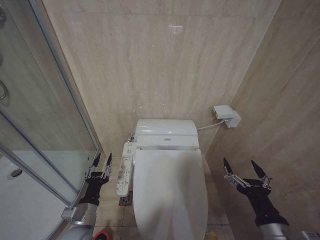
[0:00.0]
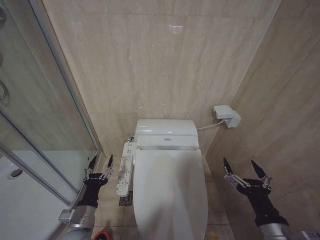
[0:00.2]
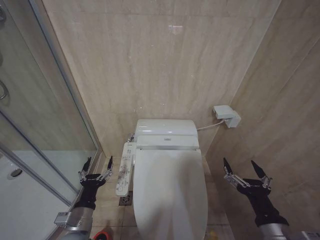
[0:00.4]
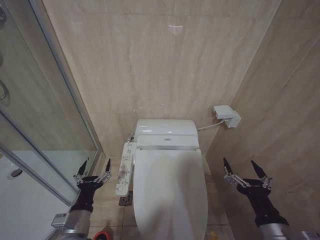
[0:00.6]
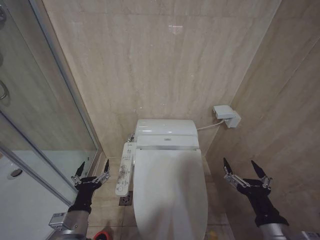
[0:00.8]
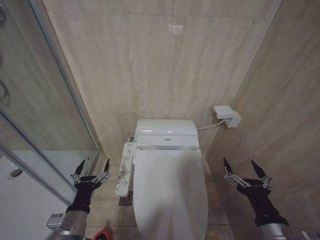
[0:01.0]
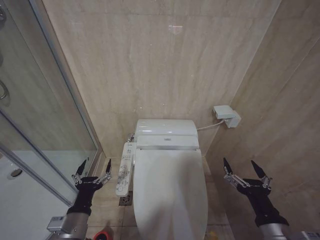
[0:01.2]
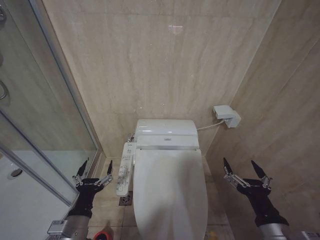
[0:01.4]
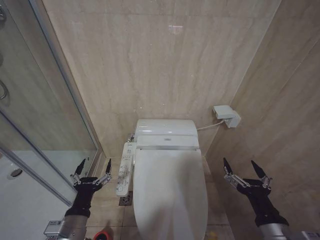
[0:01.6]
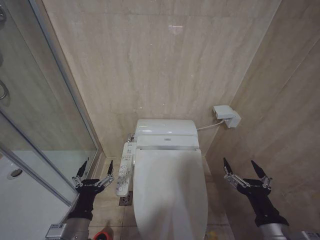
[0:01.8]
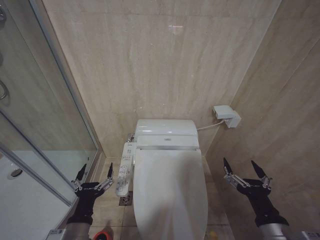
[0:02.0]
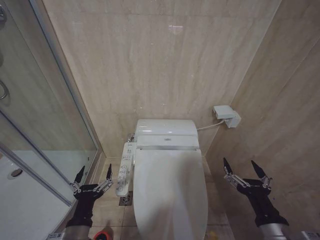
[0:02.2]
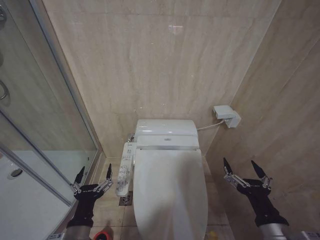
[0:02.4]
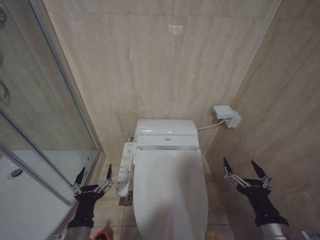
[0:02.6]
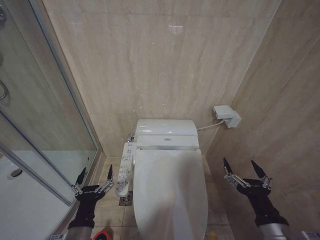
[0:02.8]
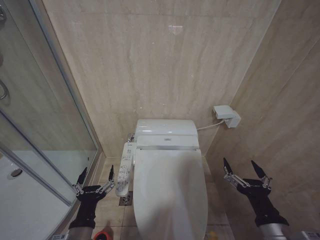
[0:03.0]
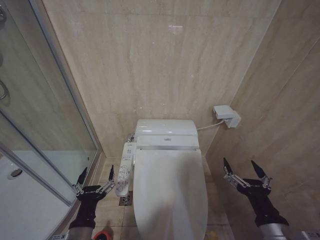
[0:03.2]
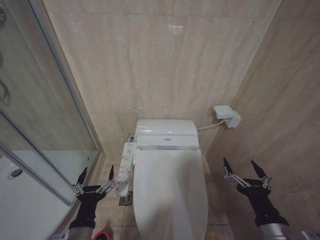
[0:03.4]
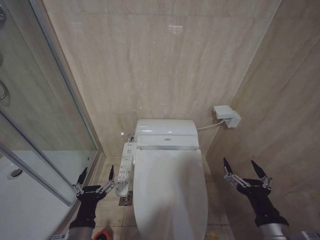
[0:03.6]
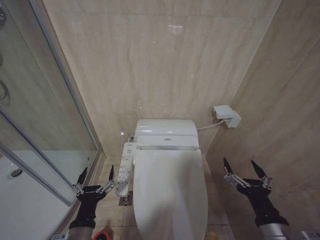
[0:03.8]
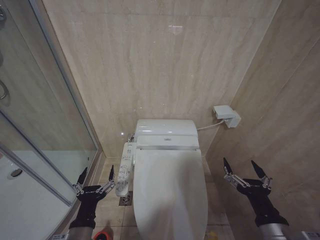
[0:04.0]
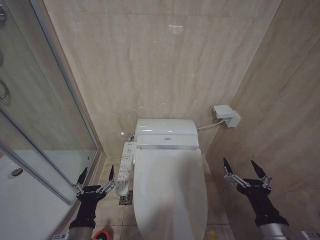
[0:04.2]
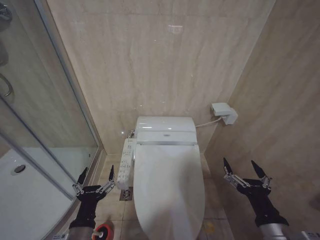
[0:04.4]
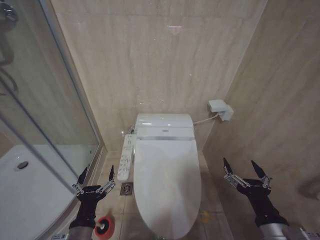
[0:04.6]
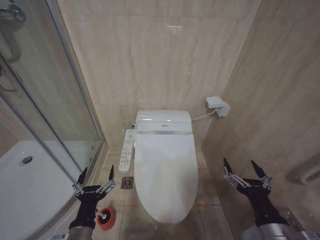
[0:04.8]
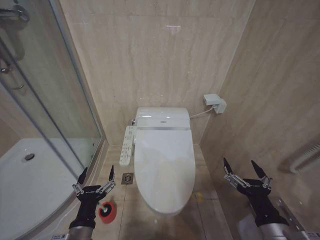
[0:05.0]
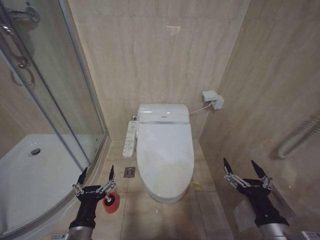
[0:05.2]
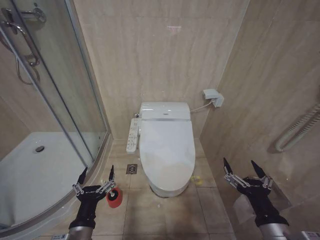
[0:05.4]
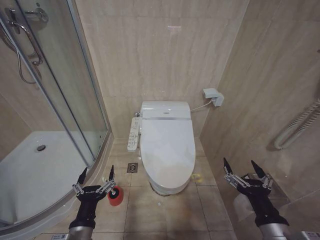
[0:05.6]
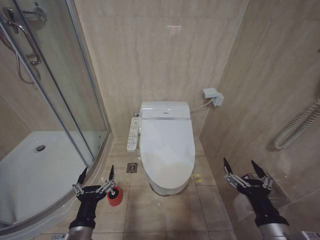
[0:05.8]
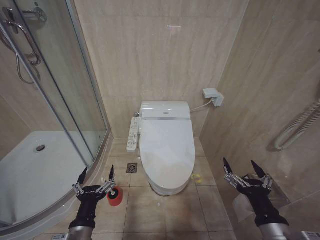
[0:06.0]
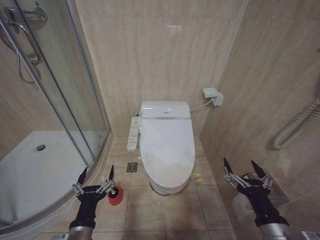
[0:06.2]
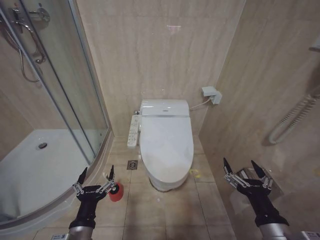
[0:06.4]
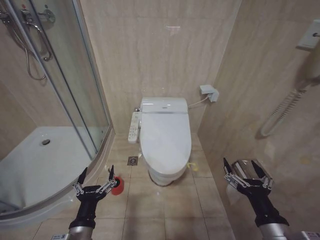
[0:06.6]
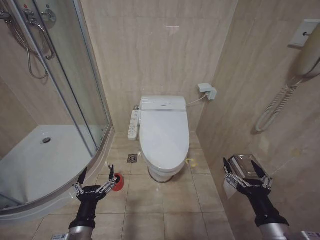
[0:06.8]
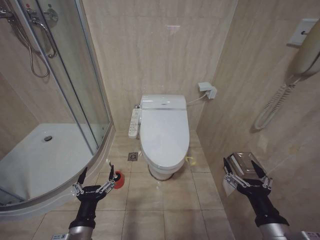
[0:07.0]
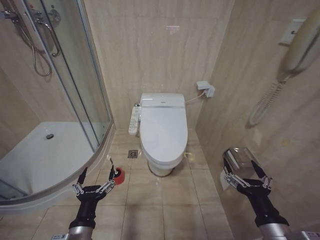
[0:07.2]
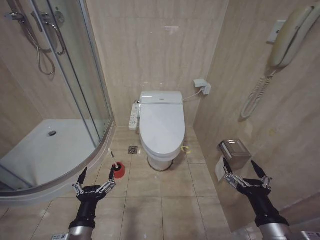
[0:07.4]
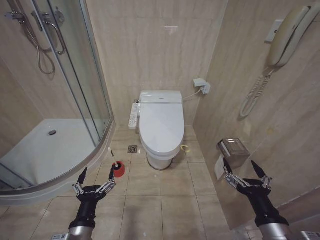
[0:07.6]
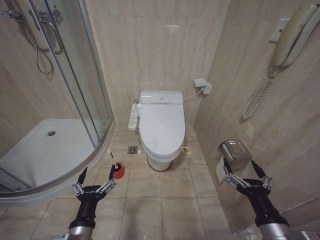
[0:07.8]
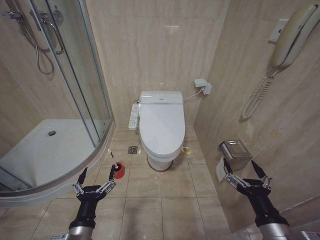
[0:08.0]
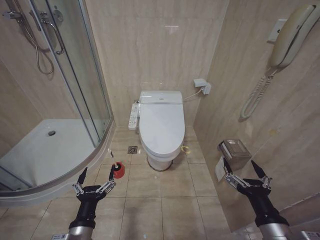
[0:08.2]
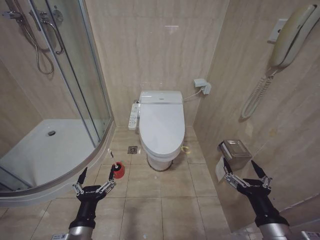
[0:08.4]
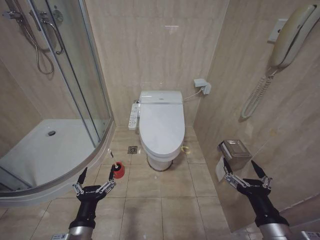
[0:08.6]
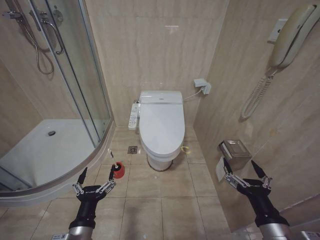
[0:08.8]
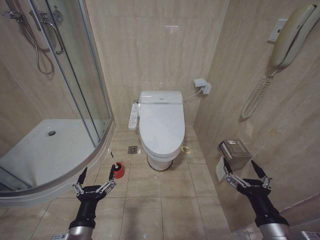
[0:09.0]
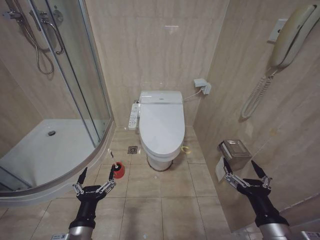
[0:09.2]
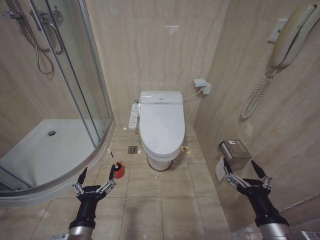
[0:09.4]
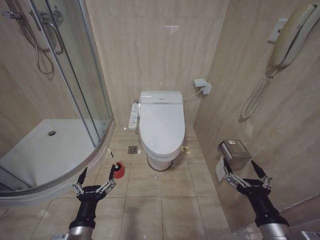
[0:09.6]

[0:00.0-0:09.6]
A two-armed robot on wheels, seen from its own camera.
Task of the whole recording: Open the toilet lid, clean the toilet bowl with a toilet brush, close the toilet lid, and flush.
0:00.0 to 0:01.6: The left gripper shifts some 10 cm upward and backward, and opens up.
0:01.6 to 0:03.2: The grippers make only small movements.
0:03.2 to 0:09.6: The two grippers keep their place.

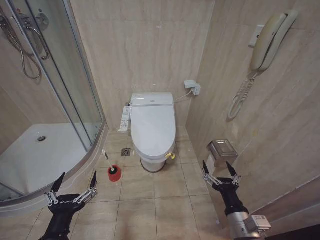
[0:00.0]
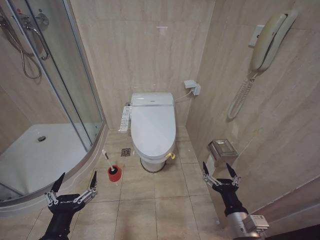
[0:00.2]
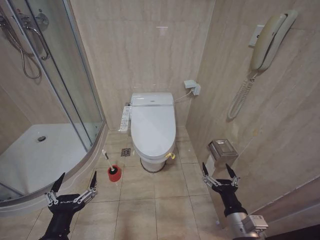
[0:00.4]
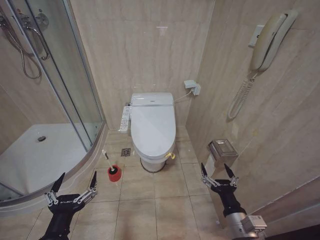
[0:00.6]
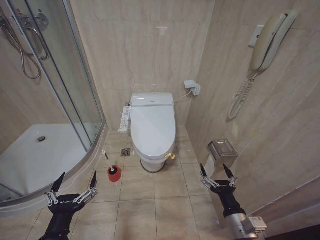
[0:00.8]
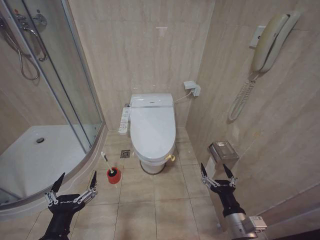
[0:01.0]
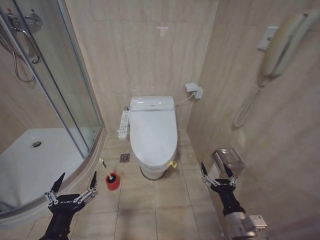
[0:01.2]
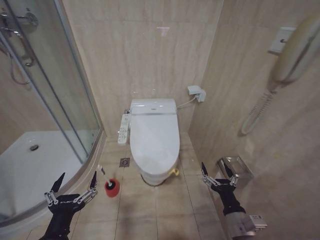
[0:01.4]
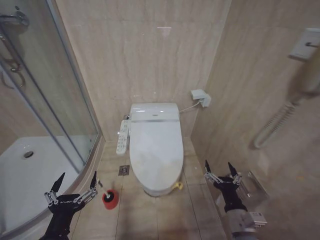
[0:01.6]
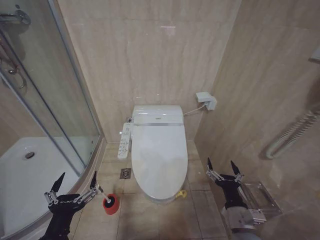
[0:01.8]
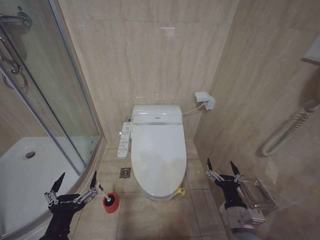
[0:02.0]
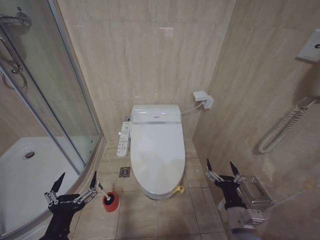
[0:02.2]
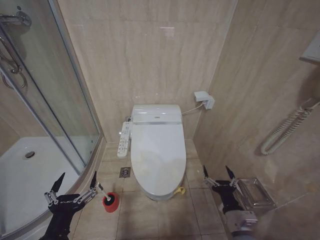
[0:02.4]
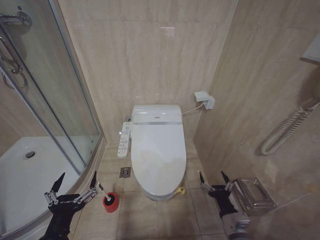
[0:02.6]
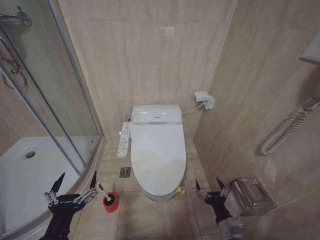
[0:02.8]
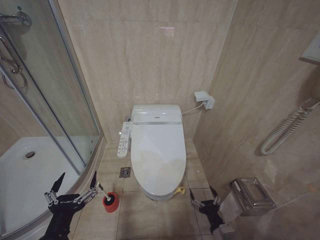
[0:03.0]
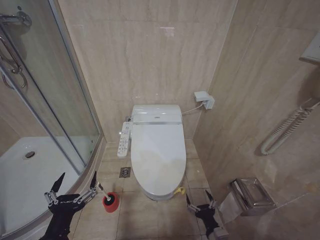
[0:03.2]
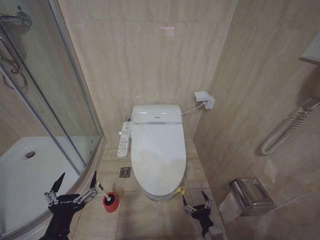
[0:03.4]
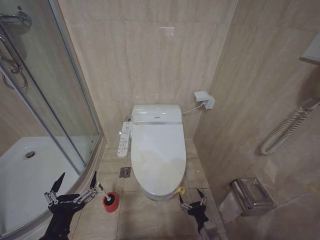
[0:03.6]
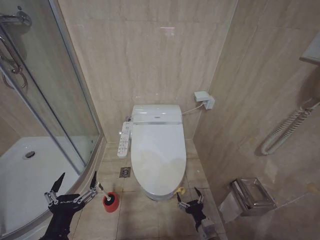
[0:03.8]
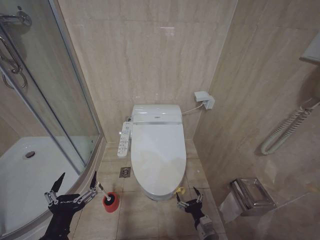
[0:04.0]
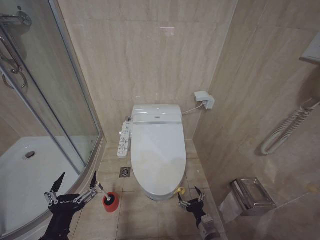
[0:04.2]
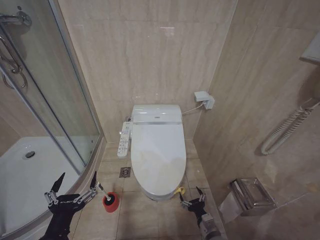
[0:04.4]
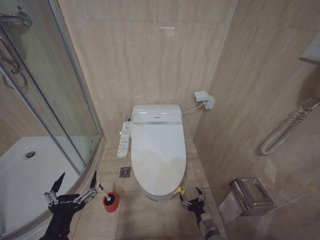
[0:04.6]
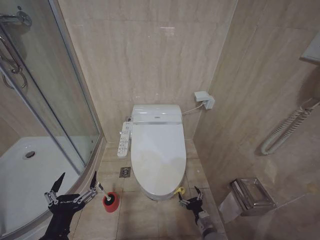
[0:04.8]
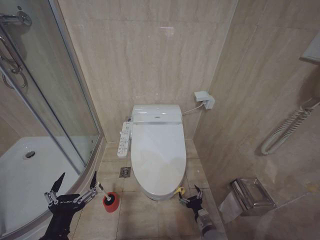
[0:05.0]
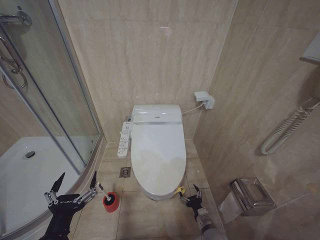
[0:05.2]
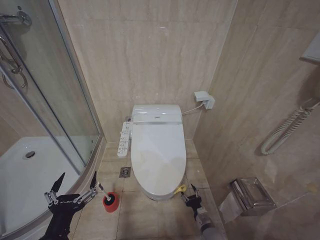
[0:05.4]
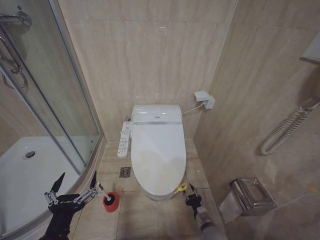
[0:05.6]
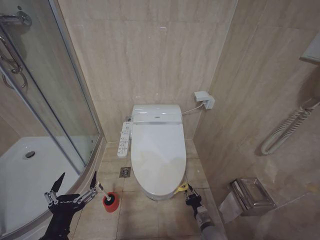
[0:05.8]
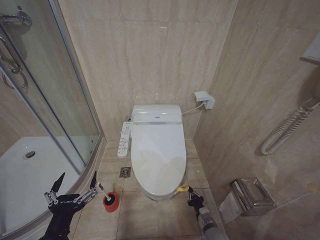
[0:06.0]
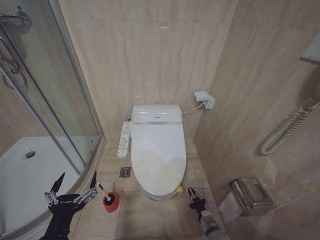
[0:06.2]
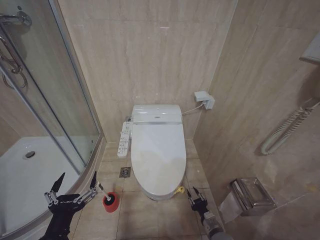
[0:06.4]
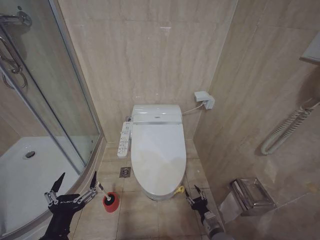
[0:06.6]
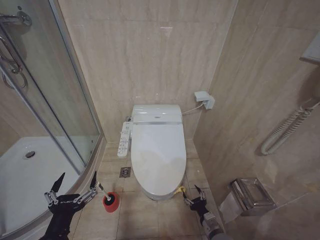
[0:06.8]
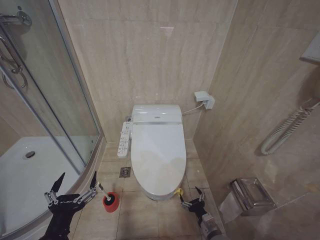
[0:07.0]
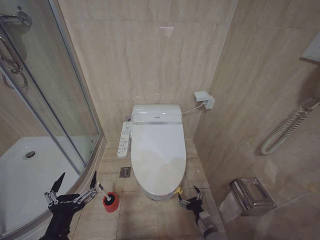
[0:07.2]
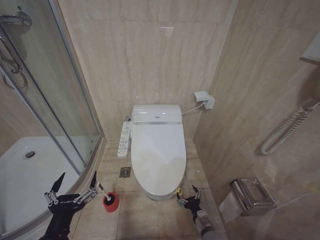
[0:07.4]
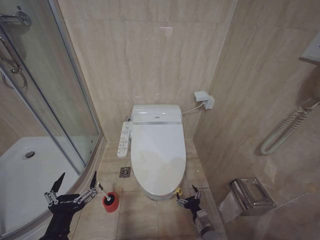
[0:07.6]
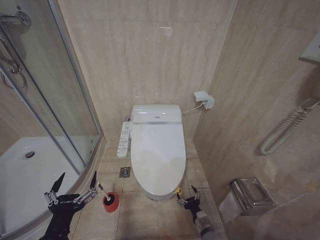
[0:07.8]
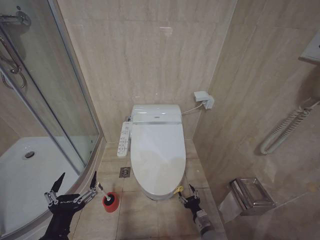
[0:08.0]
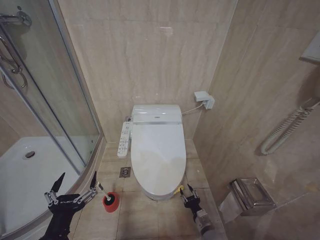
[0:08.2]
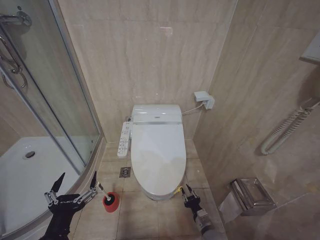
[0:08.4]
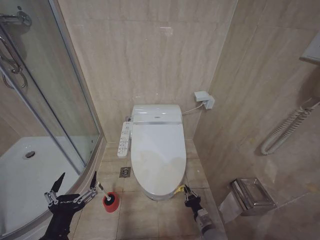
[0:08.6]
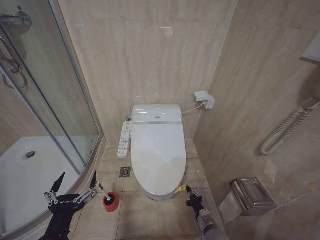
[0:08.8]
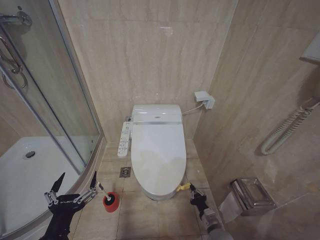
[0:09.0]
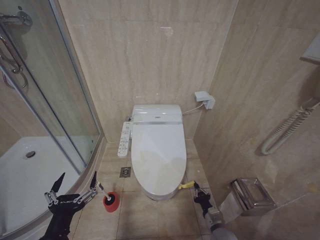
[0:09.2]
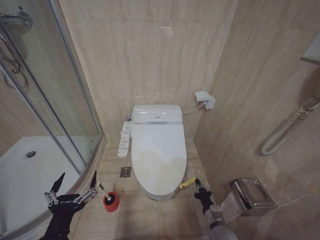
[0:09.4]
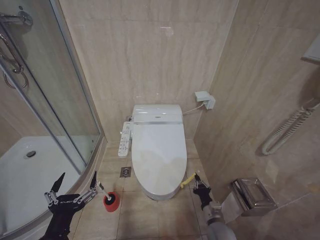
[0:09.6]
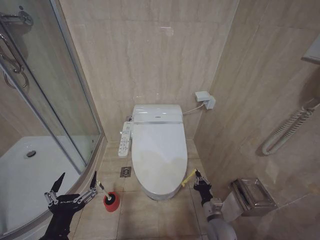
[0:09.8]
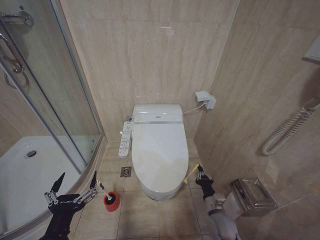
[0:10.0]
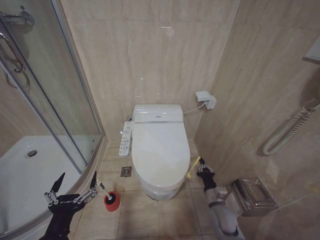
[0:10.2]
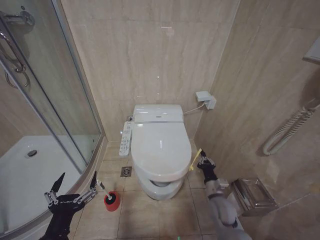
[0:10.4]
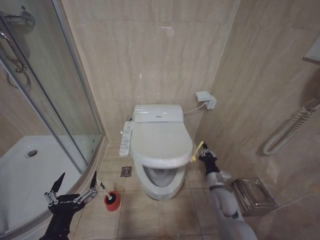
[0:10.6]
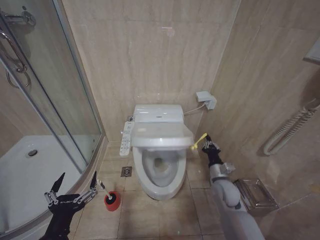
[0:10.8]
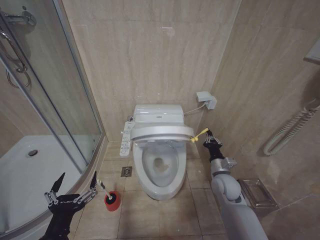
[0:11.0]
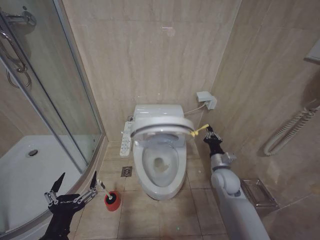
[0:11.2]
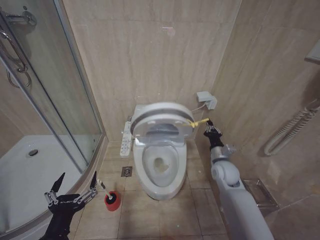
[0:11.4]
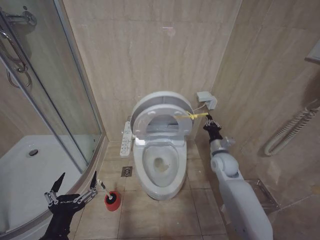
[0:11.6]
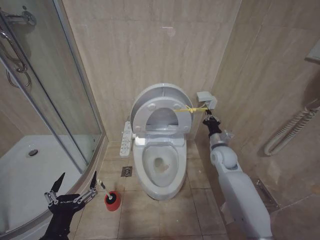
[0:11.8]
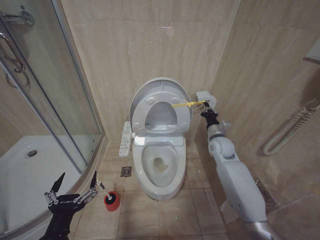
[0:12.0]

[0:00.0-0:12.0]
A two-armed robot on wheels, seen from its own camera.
Task of the whole recording: Open the toilet lid, clean the toilet bowl with a toilet brush, close the toilet lid, and flush.
0:01.6 to 0:03.0: The right gripper heads downward, covering some 10 cm.
0:03.0 to 0:04.4: The right gripper moves downward, about 5 cm.
0:07.6 to 0:09.0: The right gripper closes its fingers.
0:09.0 to 0:10.4: The right gripper shifts roughly 15 cm upward and forward.
0:10.4 to 0:12.0: The right gripper is displaced upward and forward by some 25 cm.

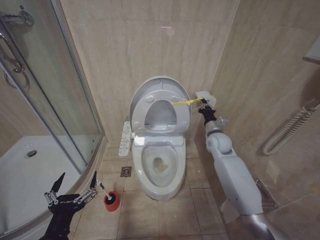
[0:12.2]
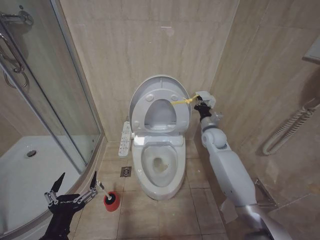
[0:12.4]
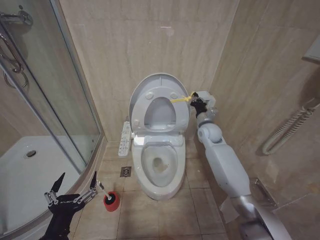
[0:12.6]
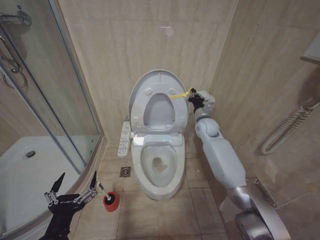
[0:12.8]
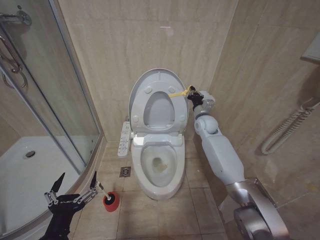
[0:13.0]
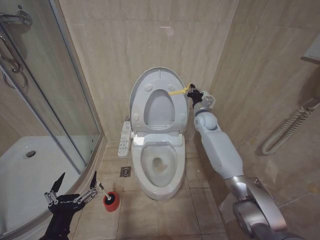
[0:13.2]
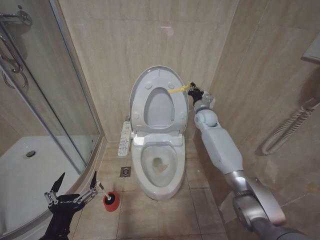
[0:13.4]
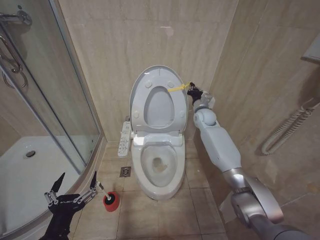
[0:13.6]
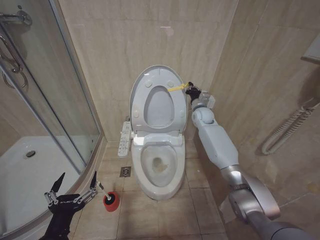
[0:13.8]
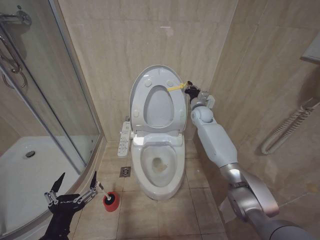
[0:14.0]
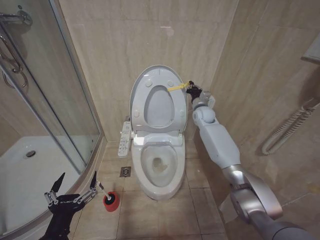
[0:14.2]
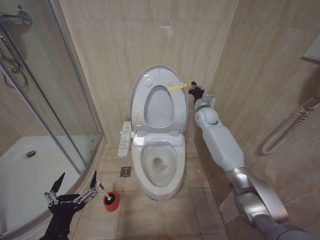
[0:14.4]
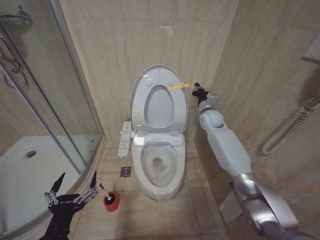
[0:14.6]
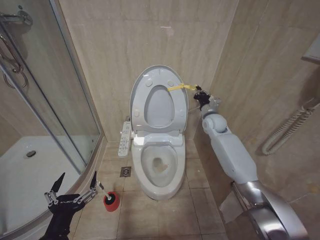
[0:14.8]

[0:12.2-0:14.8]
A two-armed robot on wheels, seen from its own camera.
Task of the whole recording: Open the toilet lid, clean the toilet bowl with a toilet brush, close the toilet lid, and flush.
0:12.2 to 0:13.4: The right gripper travels forward and upward by about 10 cm.
0:13.4 to 0:14.8: The grippers move only a little.
